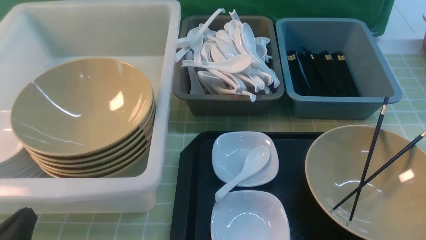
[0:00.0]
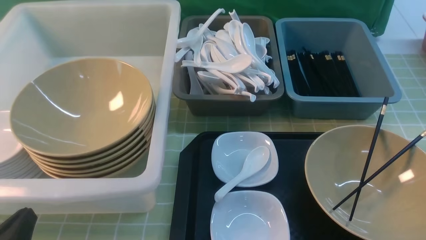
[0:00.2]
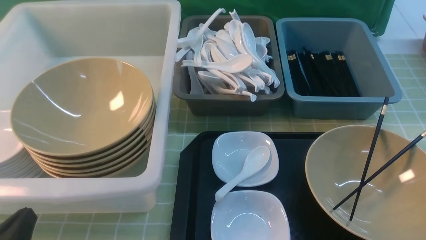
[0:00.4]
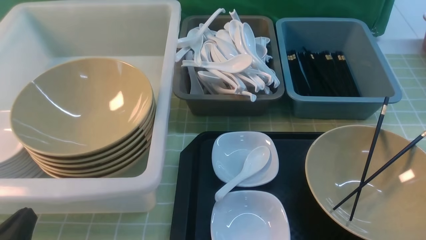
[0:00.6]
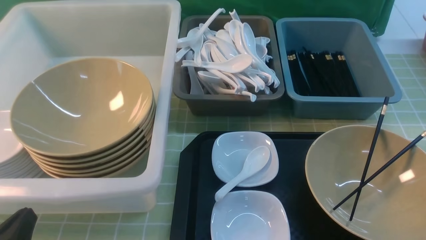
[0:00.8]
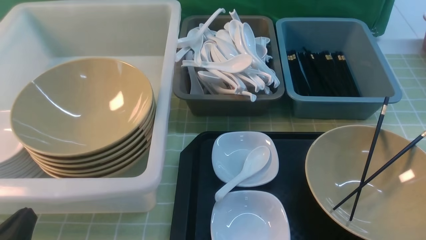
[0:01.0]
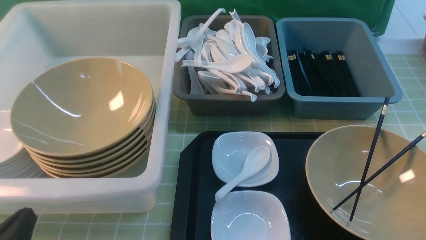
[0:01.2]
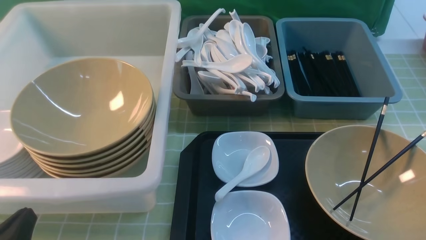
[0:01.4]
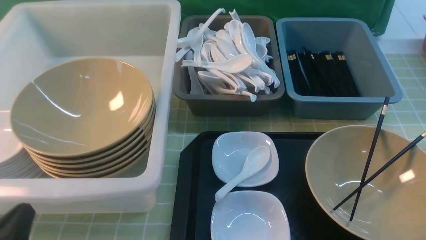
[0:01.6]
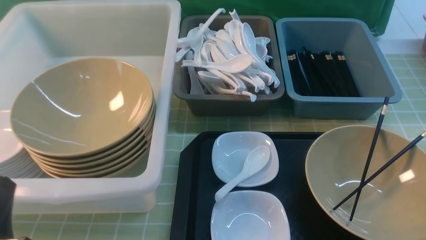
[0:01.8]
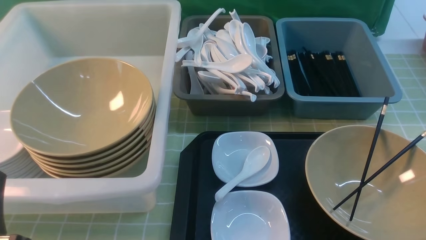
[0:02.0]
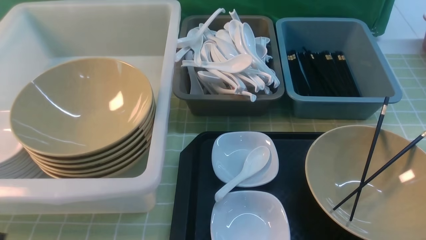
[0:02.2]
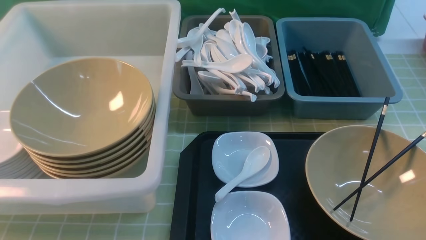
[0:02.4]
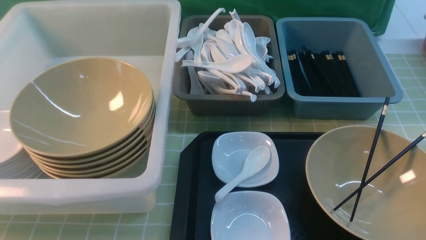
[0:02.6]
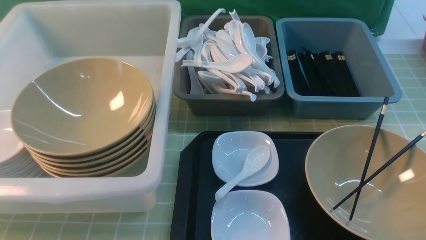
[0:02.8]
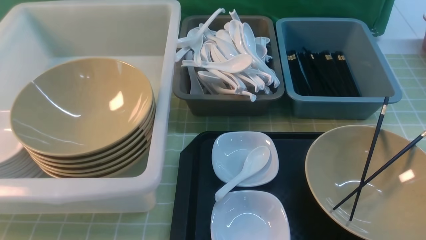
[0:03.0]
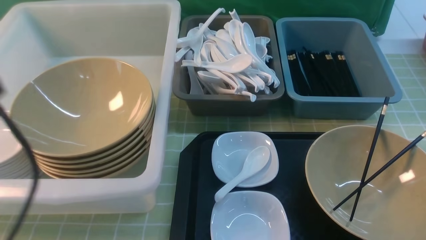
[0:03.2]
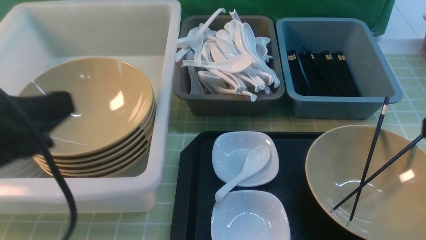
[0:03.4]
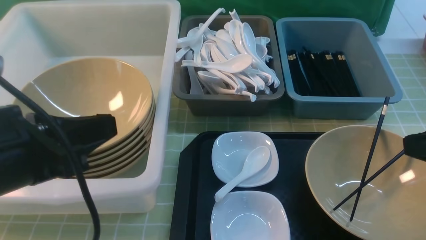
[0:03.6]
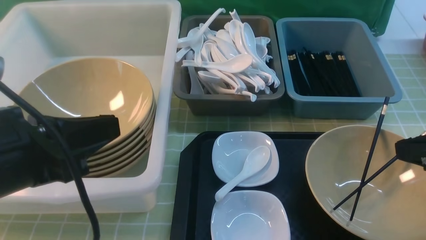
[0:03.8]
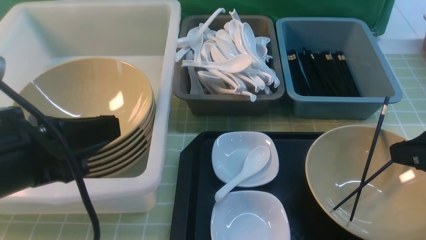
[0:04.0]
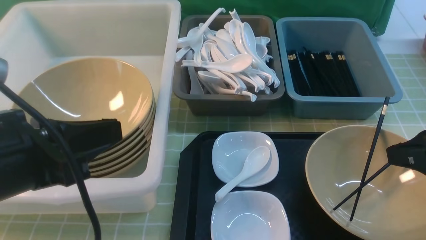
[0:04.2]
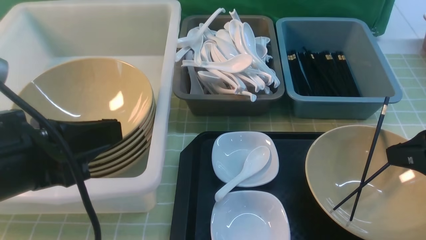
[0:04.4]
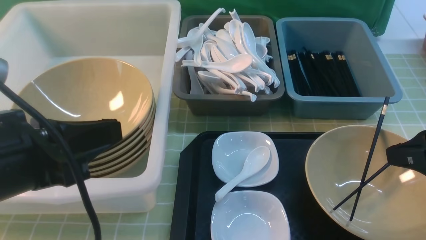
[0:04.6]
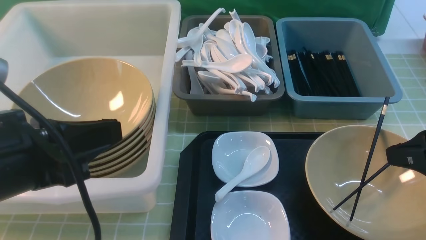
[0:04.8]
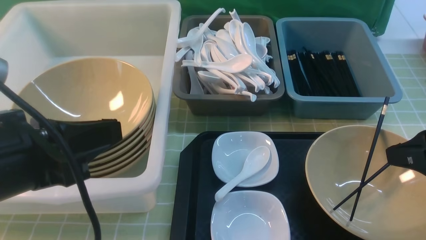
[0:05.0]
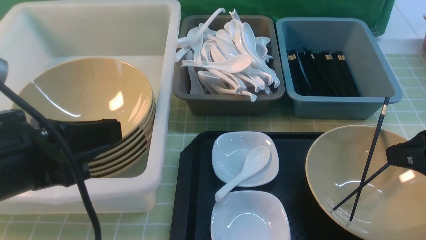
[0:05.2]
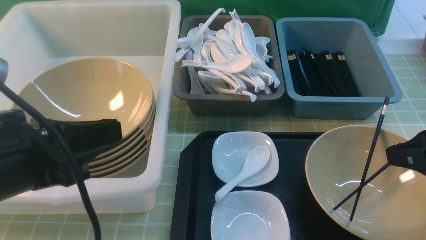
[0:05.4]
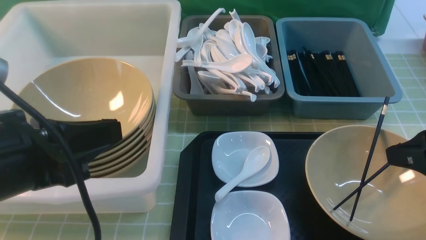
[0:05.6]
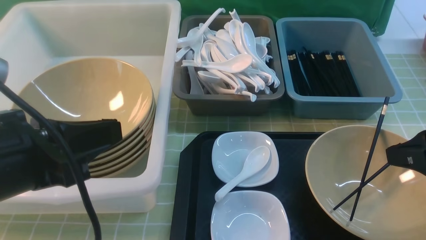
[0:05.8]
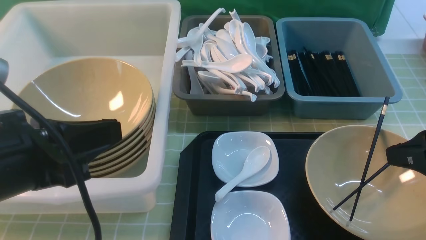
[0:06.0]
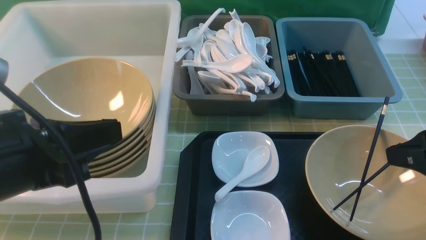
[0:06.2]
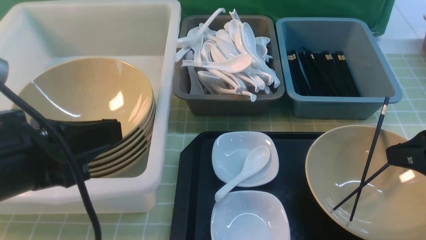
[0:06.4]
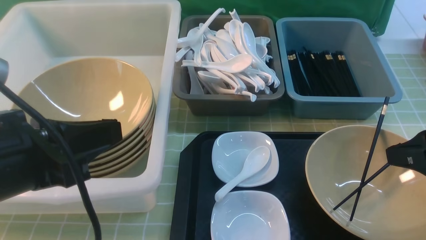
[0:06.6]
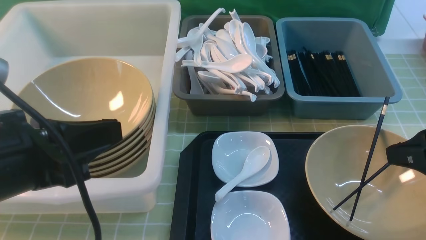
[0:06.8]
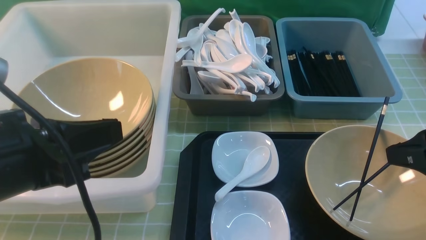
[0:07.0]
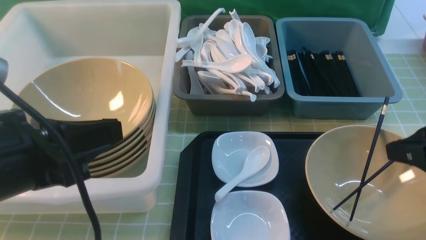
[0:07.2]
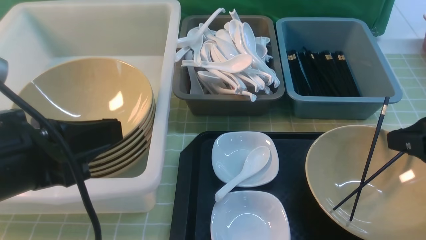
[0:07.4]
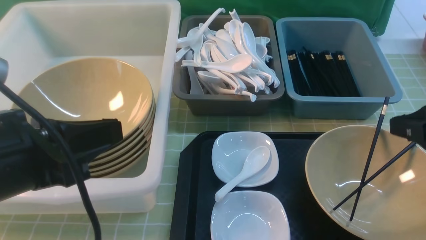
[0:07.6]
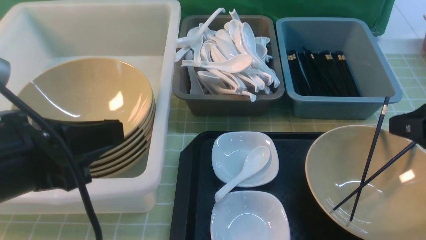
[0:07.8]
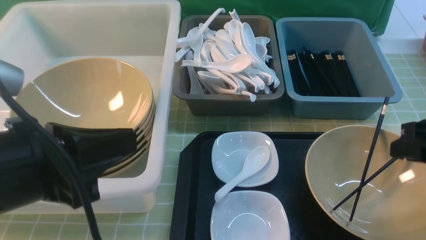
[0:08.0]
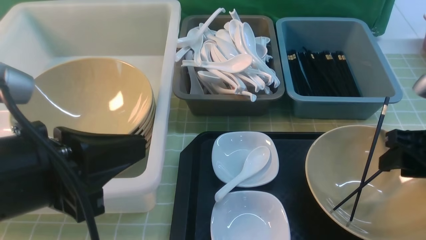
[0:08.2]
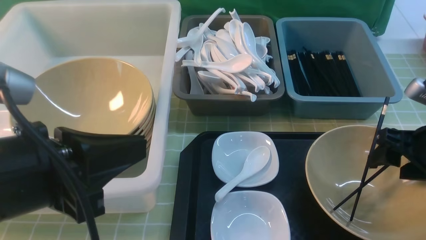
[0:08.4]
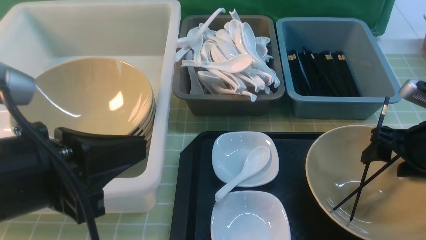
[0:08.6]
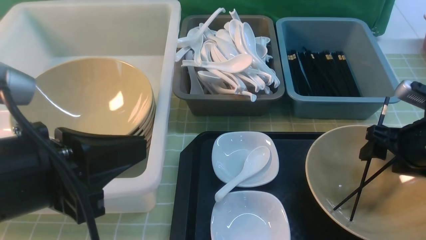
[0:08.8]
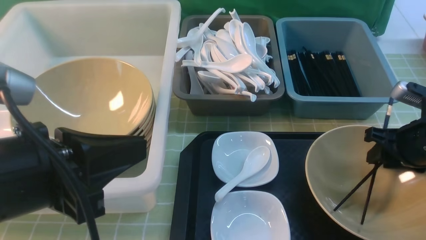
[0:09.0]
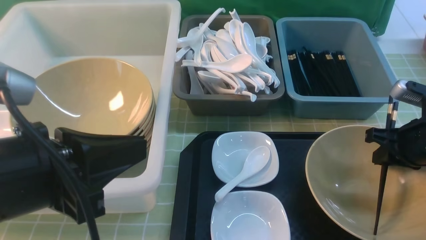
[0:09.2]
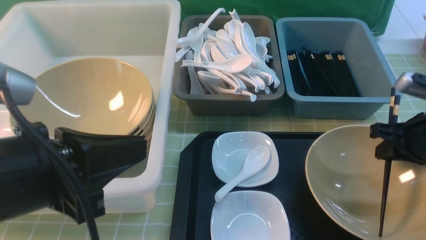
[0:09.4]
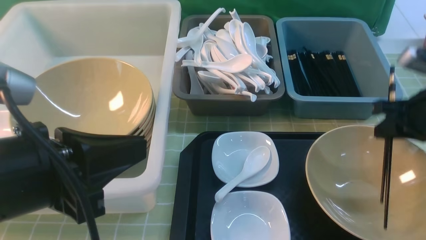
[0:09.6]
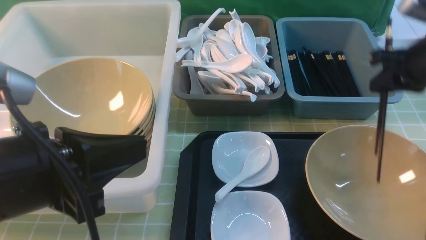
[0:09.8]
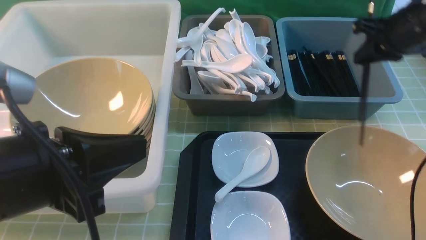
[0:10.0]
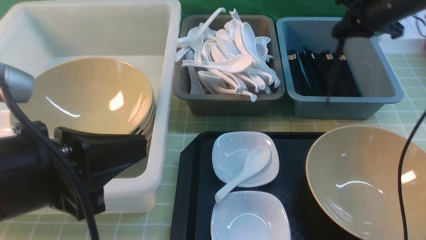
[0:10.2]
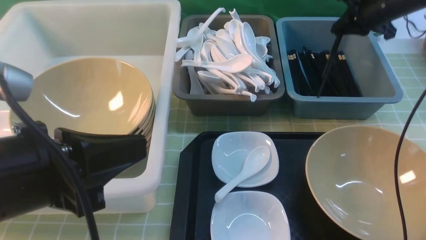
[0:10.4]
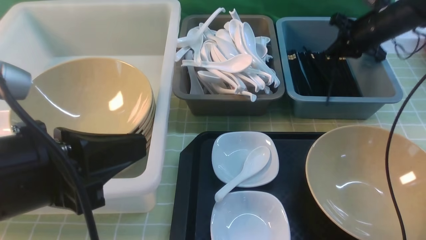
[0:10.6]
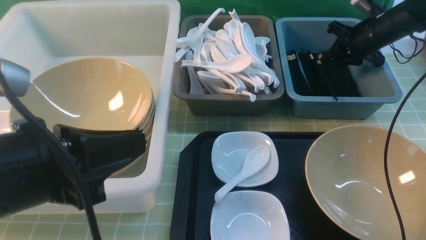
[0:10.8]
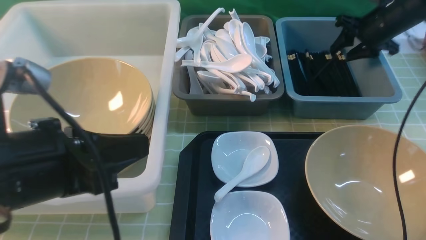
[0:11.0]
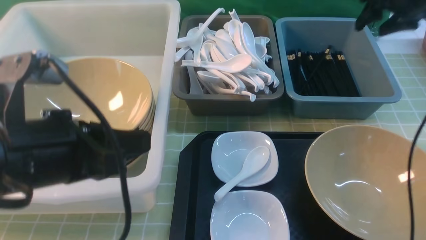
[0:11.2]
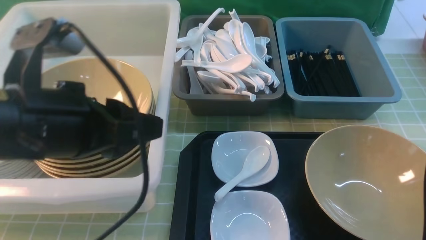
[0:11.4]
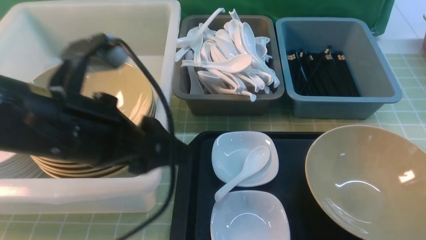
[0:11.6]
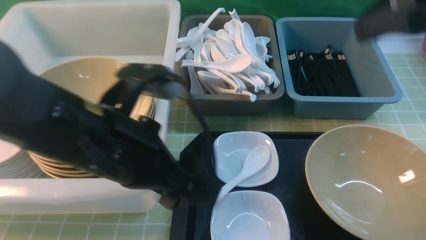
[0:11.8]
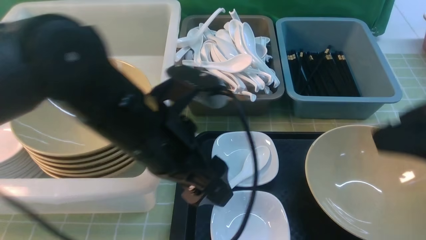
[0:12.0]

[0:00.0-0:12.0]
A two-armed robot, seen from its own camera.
Task of the whole recording: on green table put chopsticks spoon bowls plates into blue grey white boxes.
Step, 0:00.0 to 0:10.0: use the right arm to grab the chopsticks.
Step, 0:10.2 to 0:11.2: use the right arm to put the chopsticks into the small storage box on the right.
0:01.6 to 0:03.0: The left gripper shifts roughly 20 cm upward.
0:03.0 to 0:04.4: The left gripper heads downward and to the right, covering roughly 10 cm. The right gripper heads forward and downward, covering about 15 cm.
0:04.4 to 0:06.0: Both grippers stay put.
0:06.0 to 0:07.6: There are only small adjustments of the grippers.
0:07.6 to 0:09.0: The right gripper moves downward and forward, approximately 15 cm, and opens and closes again.
0:09.0 to 0:10.4: The right gripper shifts about 25 cm forward, and closes.
0:10.4 to 0:12.0: The right gripper moves backward, about 35 cm, and opens its fingers; the left gripper moves to the right and forward, some 15 cm, and opens its fingers.

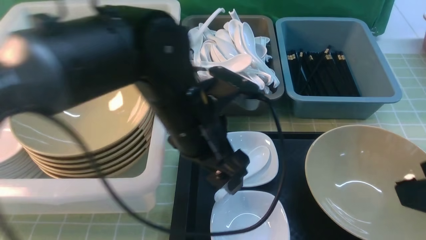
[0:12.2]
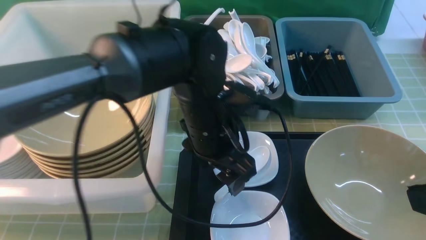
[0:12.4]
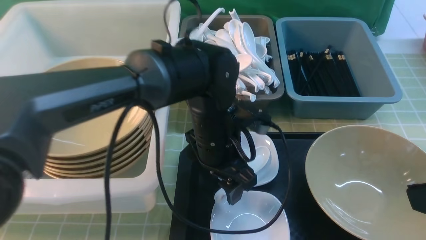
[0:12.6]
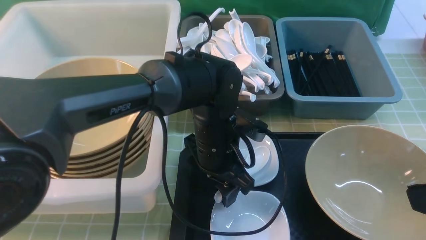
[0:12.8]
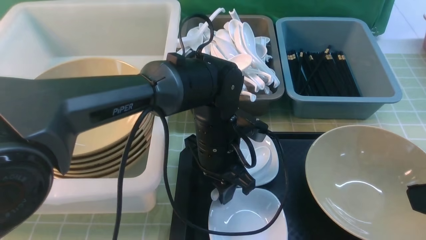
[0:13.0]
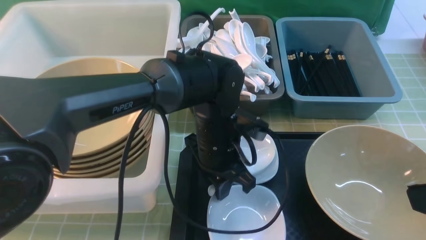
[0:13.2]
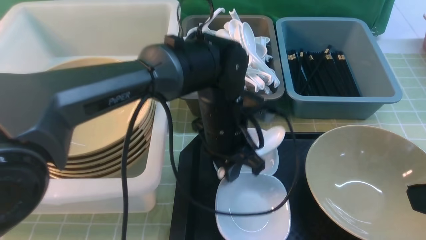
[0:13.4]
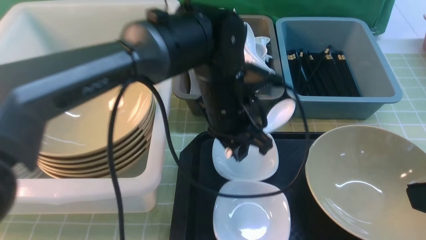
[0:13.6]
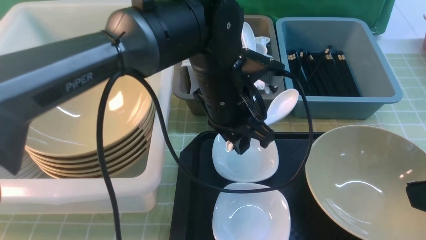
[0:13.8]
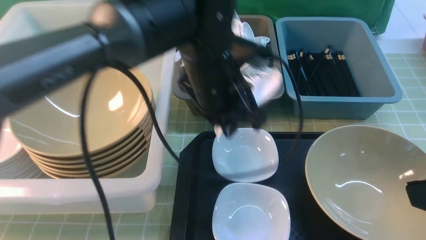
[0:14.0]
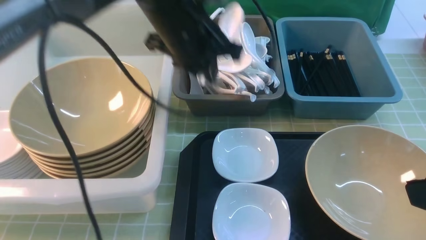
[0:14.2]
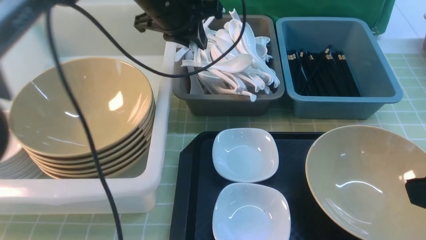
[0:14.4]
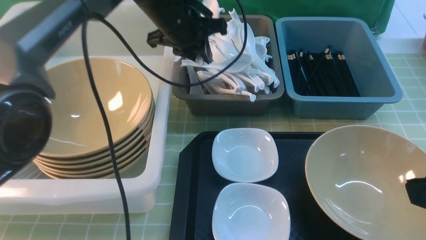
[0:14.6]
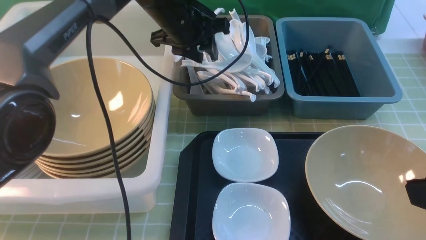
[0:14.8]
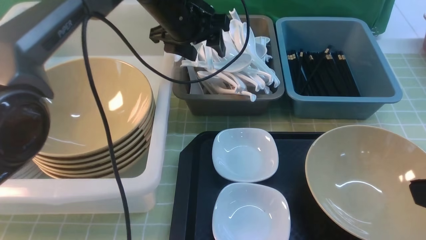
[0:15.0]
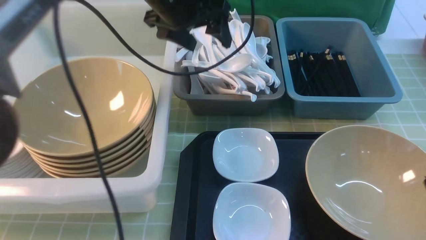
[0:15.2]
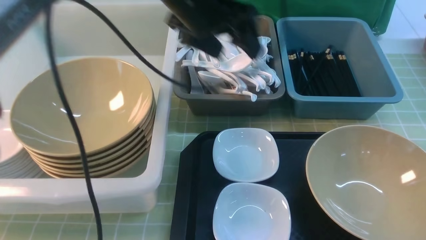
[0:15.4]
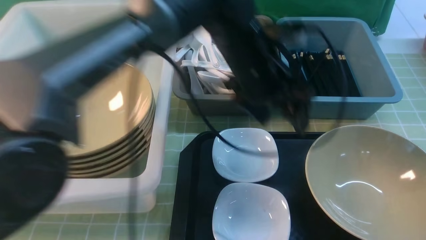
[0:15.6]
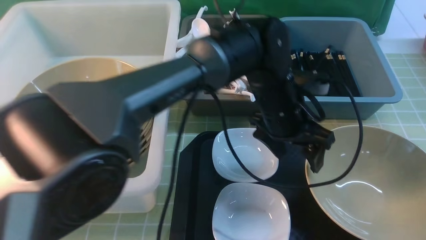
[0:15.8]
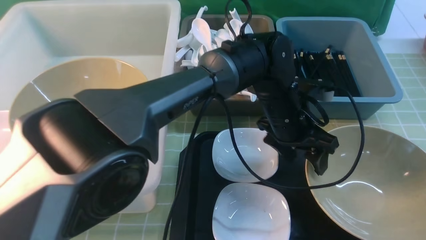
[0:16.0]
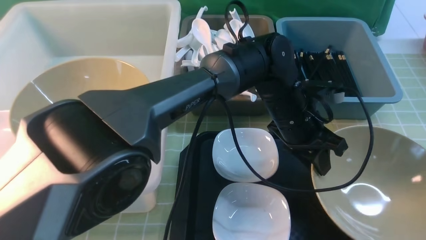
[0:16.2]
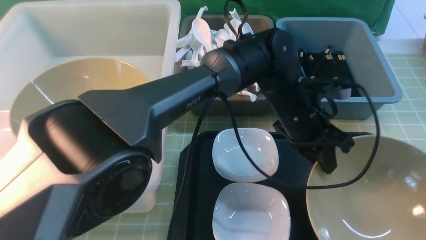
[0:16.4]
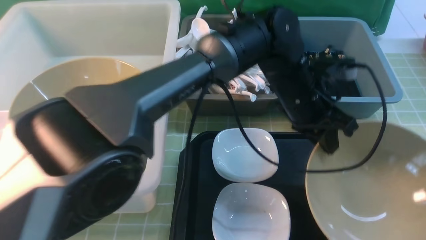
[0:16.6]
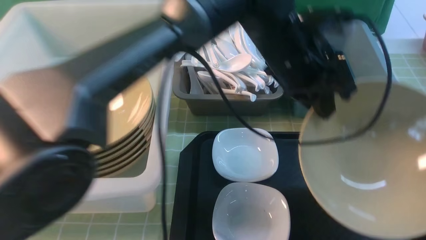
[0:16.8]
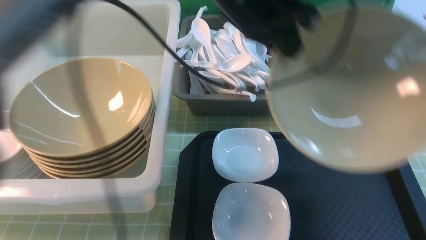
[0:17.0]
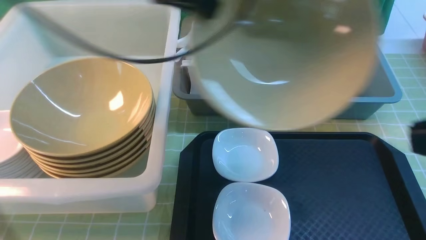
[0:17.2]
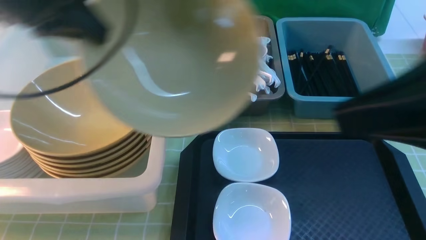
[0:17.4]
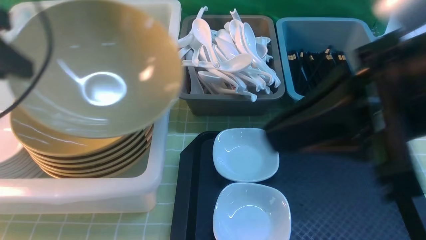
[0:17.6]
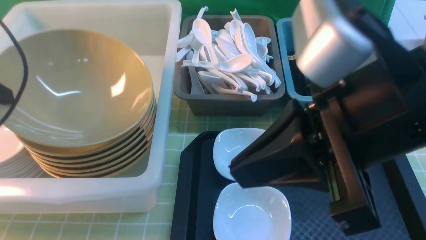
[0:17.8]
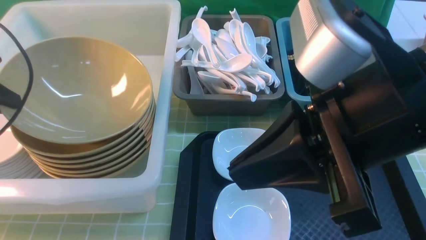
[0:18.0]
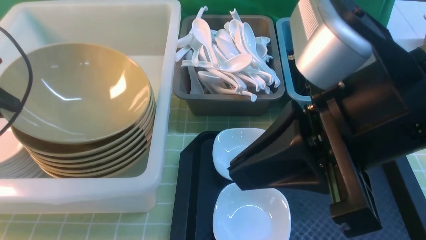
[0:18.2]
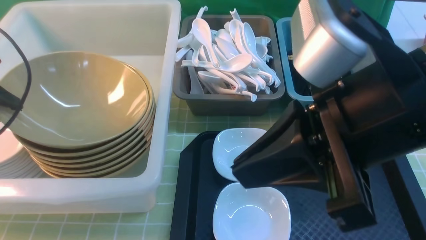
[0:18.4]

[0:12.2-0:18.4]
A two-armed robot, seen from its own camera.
Task of the whole recording: on green table put chopsticks spoon bowls plates into blue grey white boxes.
Step, 0:12.2 to 0:14.0: use the left arm to grab the soup spoon in the middle.
Step, 0:14.2 to 0:15.4: use the left arm to put the soup spoon into the small storage box in the middle.
Step, 0:15.6 to 0:17.2: use the left arm to grab the yellow noodle bowl on the left.
0:12.2 to 0:13.8: The left gripper is displaced forward by approximately 5 cm, moves approximately 10 cm downward and comes back, and closes up.
0:13.8 to 0:15.4: The right gripper closes up; the left gripper moves forward and upward, about 10 cm, and opens.
0:15.4 to 0:16.8: The left gripper goes about 5 cm to the right, travels downward and back again, about 10 cm each way, and closes; the right gripper closes.
0:16.8 to 0:18.4: The left gripper goes roughly 40 cm to the left. Meanwhile the right gripper is displaced to the left and forward by about 15 cm.
